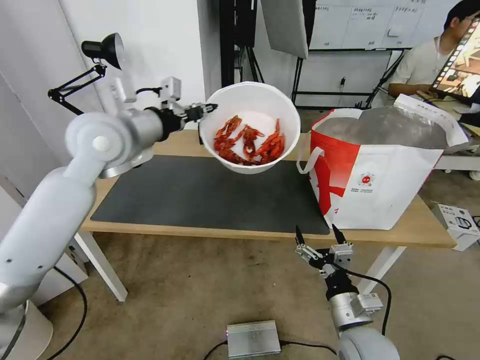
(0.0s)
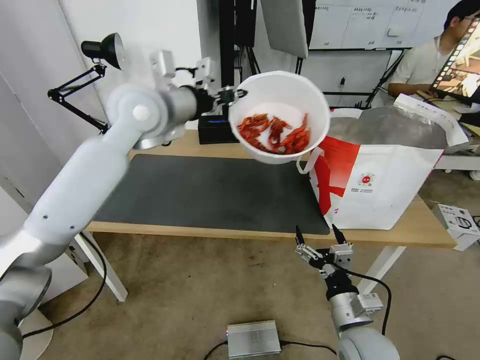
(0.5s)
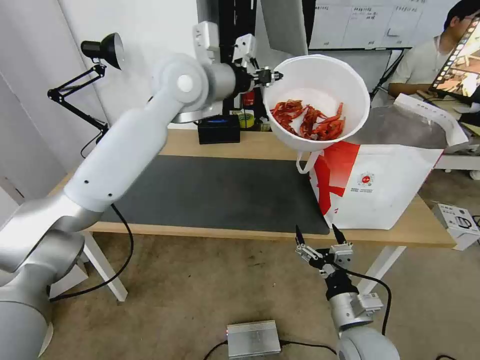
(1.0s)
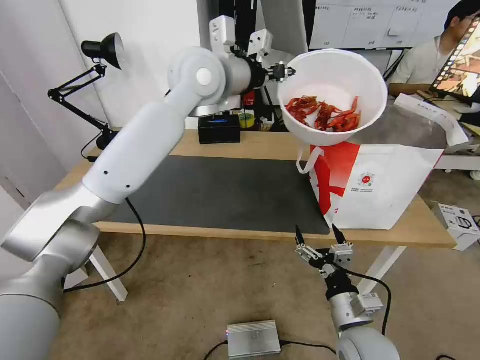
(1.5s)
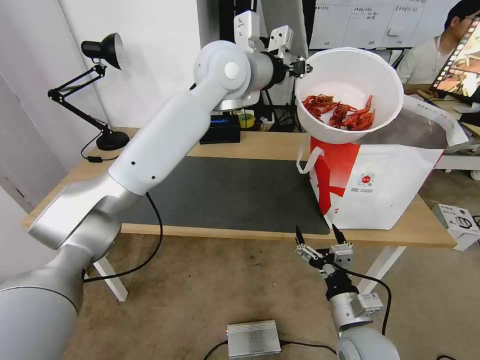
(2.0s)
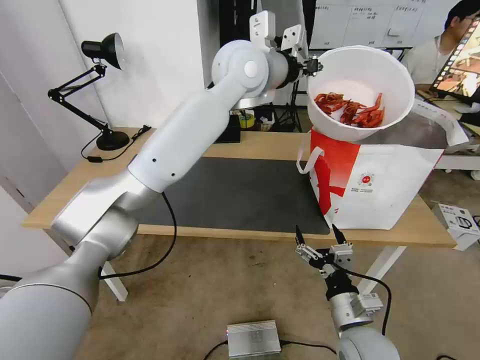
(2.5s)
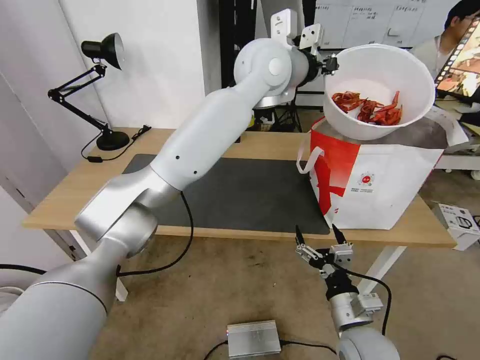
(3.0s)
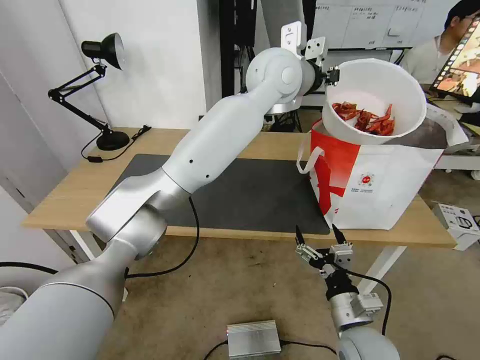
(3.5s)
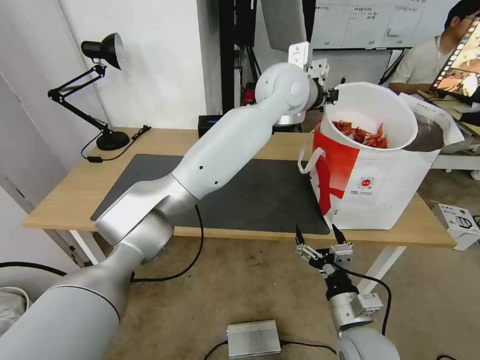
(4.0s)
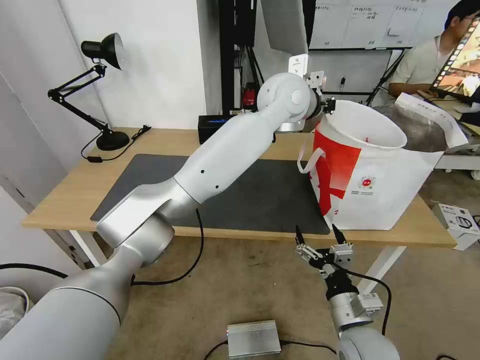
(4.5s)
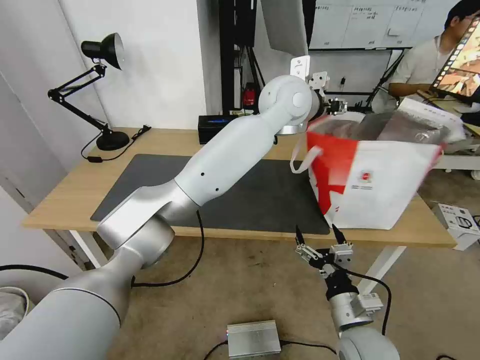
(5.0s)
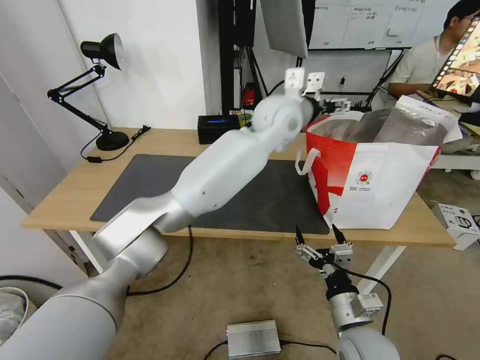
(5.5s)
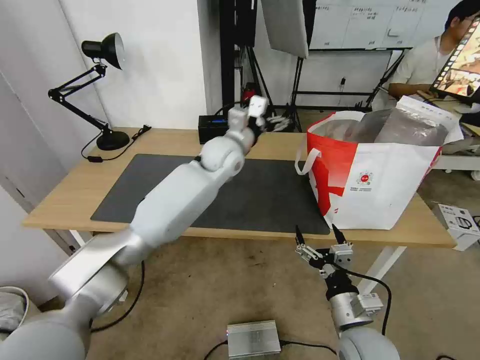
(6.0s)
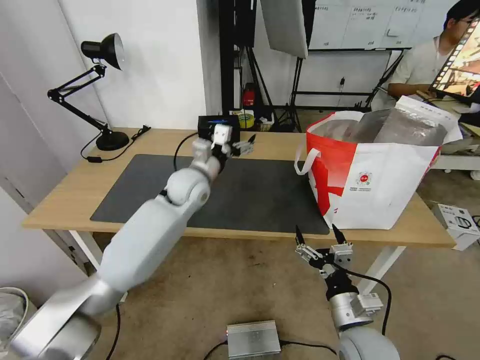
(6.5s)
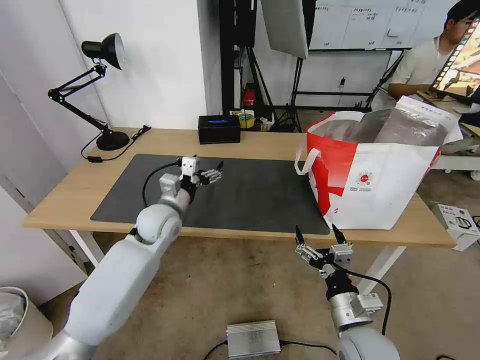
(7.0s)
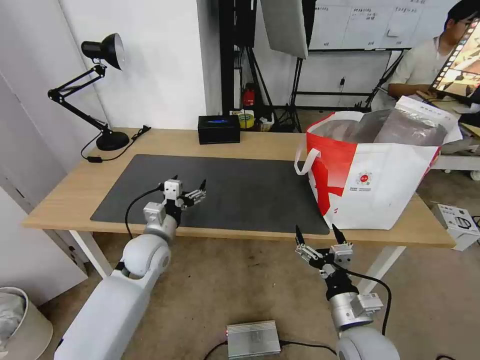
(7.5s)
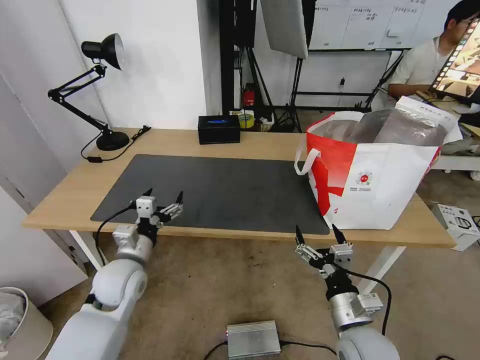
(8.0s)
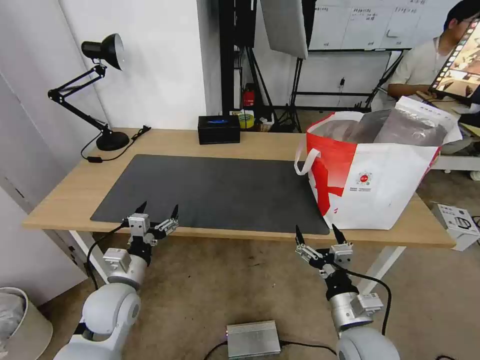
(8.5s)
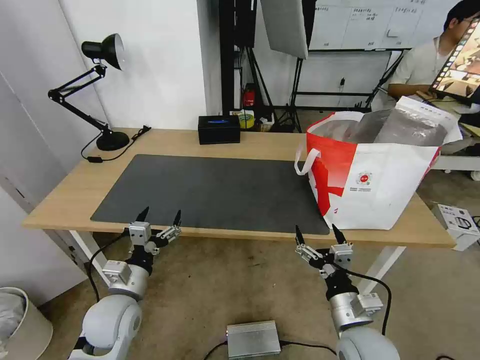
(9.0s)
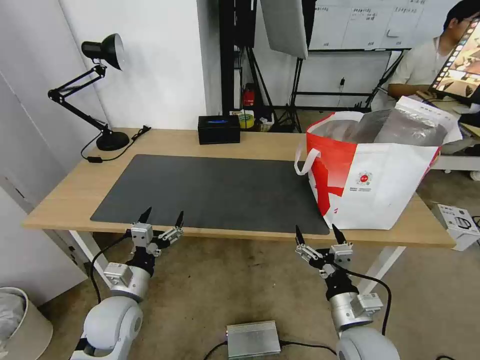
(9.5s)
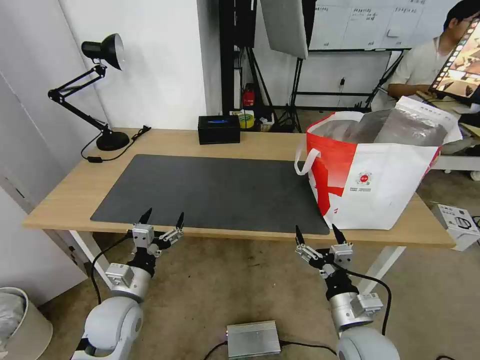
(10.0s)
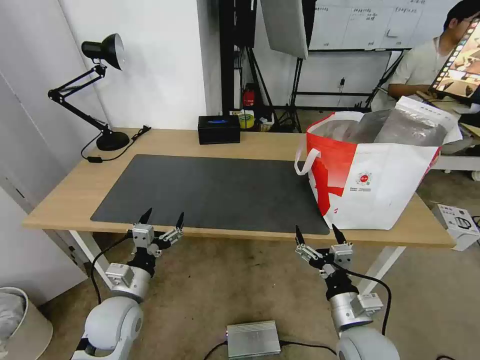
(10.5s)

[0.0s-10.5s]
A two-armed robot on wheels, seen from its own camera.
Task of the whole recording: Pick up the trash from the table and place it into the takeout bag.
0.0s to 2.0s: The left gripper heads to the right and forward, covering roughly 25 cm.
2.0s to 4.0s: The left gripper travels to the right by about 10 cm.
4.0s to 6.5s: The left gripper moves downward and to the left, about 30 cm, and opens up.
6.5s to 8.5s: The left gripper goes approximately 30 cm backward, to the left and downward.
8.5s to 10.5s: The grippers move only a little.
